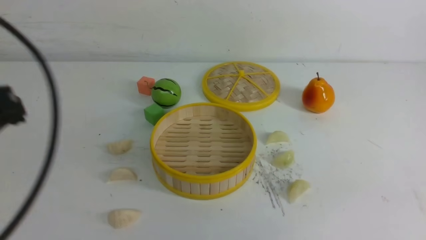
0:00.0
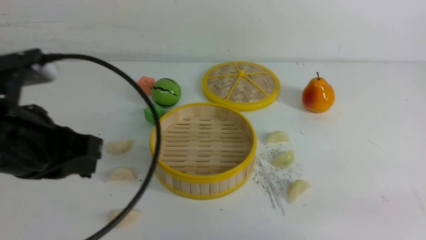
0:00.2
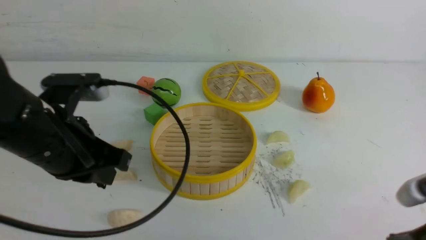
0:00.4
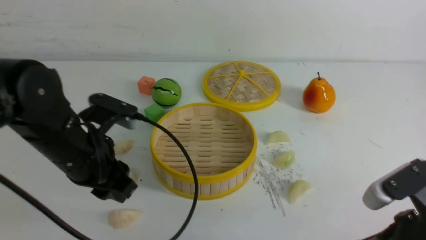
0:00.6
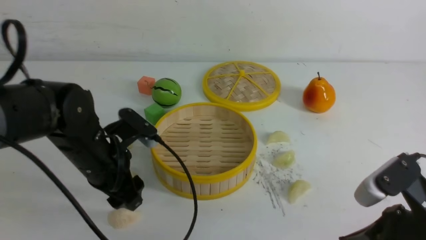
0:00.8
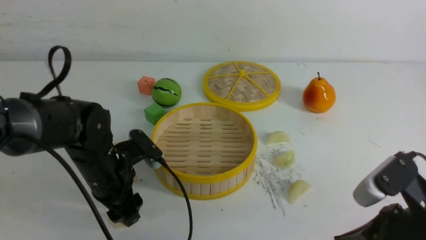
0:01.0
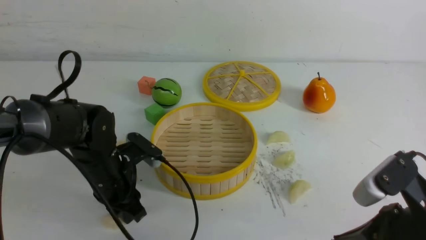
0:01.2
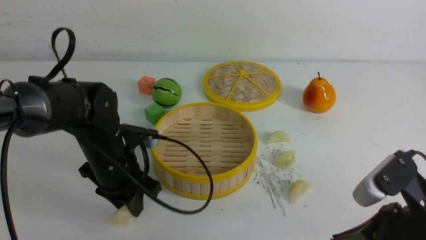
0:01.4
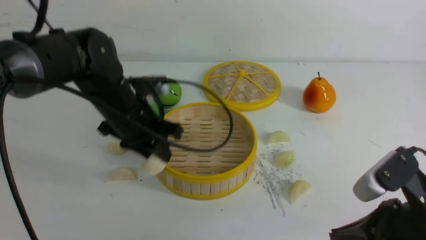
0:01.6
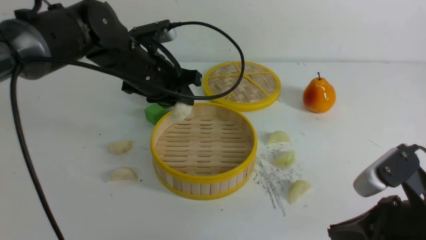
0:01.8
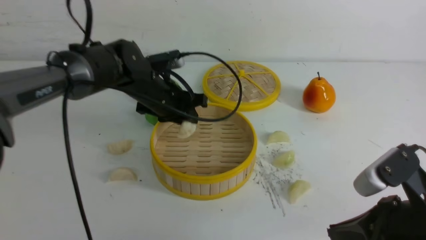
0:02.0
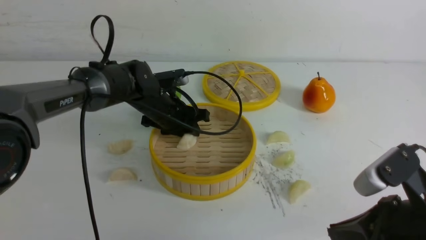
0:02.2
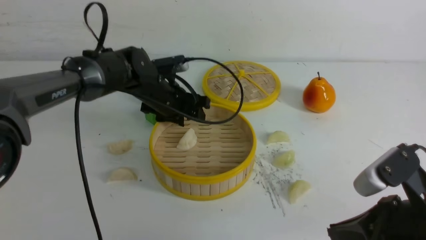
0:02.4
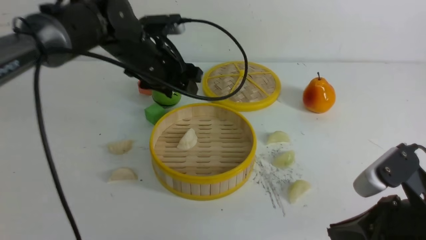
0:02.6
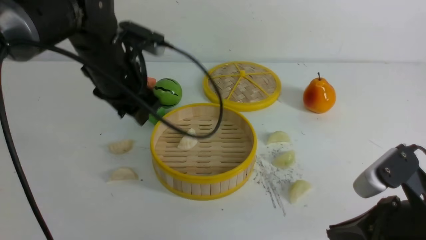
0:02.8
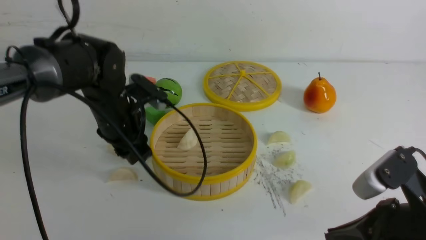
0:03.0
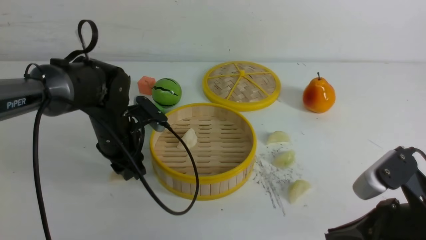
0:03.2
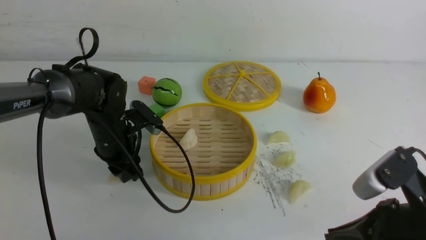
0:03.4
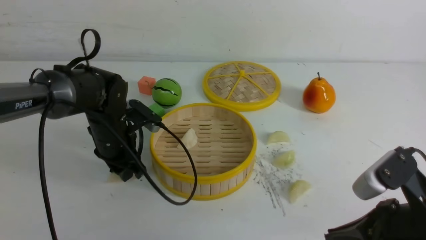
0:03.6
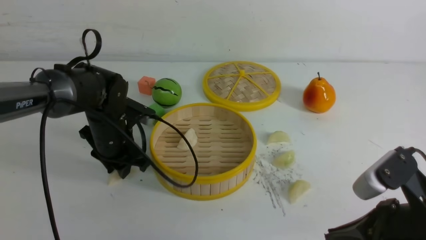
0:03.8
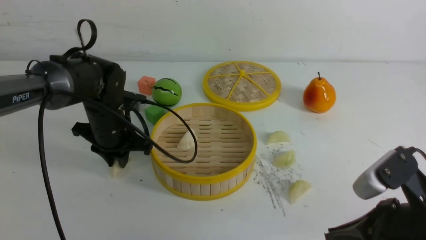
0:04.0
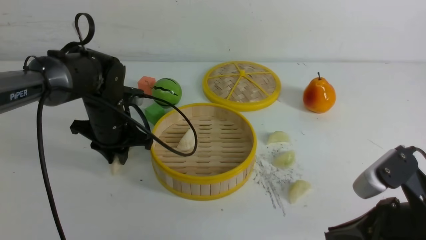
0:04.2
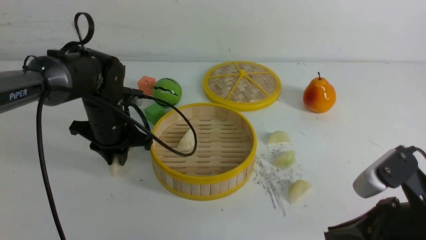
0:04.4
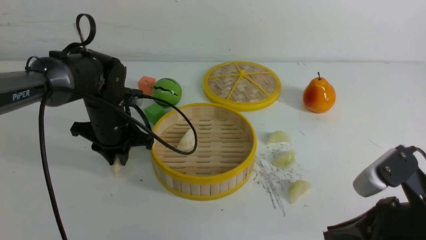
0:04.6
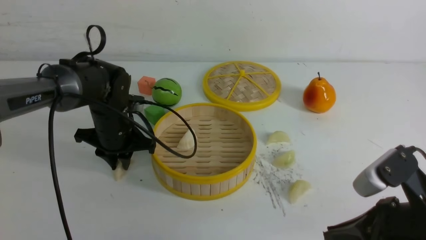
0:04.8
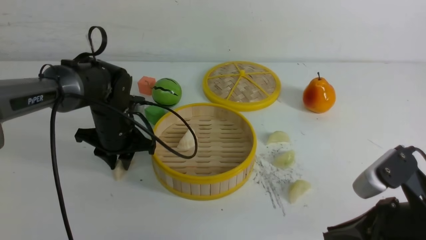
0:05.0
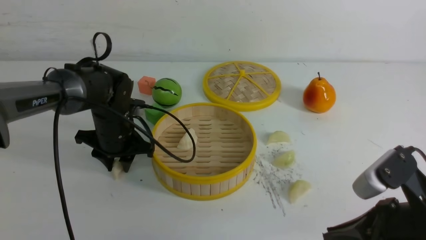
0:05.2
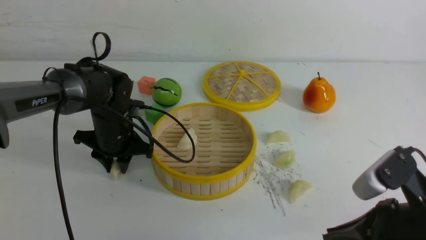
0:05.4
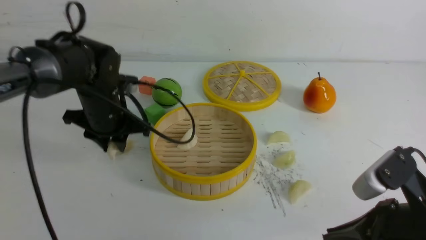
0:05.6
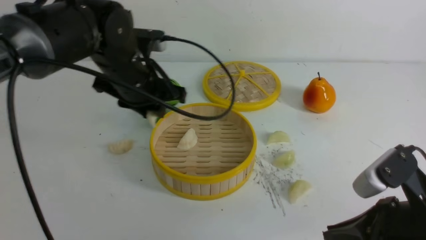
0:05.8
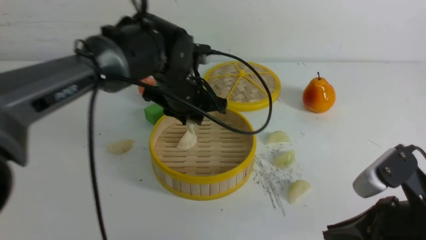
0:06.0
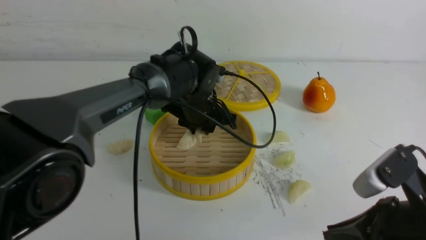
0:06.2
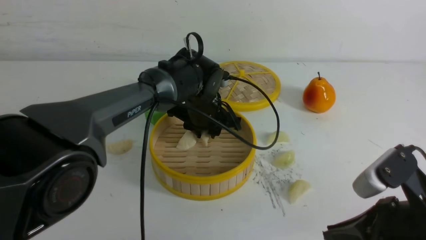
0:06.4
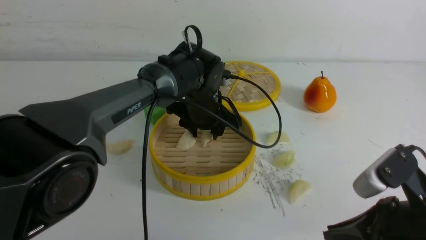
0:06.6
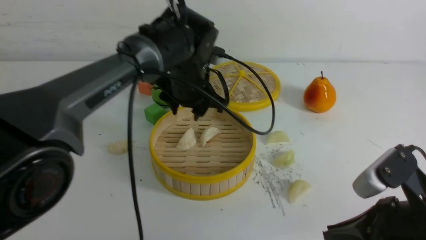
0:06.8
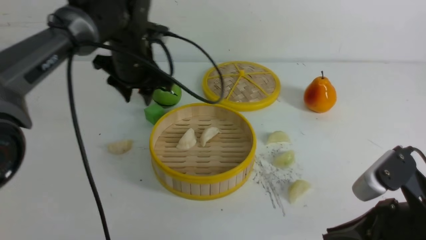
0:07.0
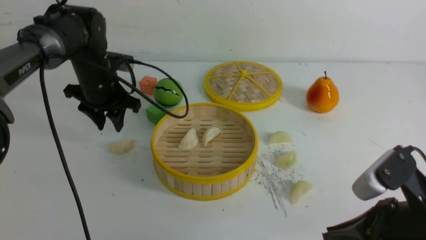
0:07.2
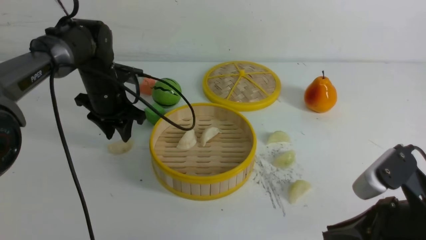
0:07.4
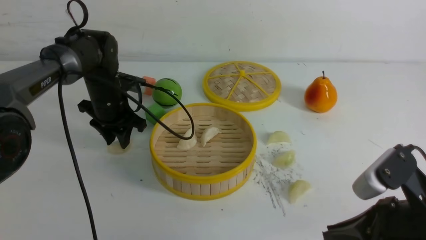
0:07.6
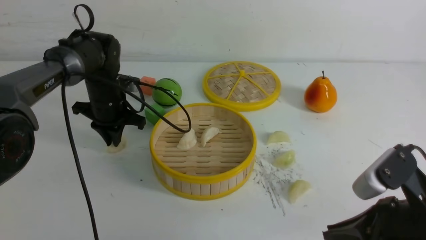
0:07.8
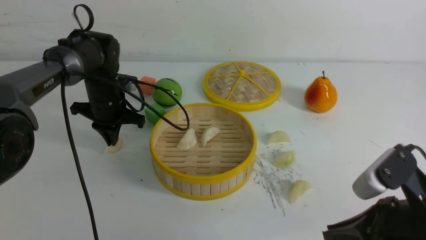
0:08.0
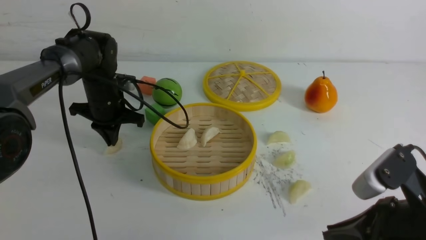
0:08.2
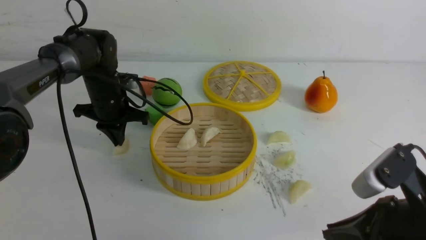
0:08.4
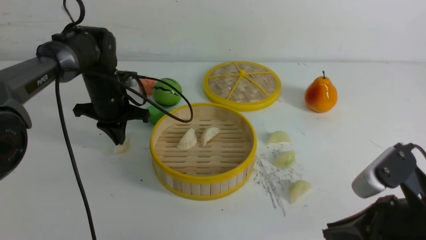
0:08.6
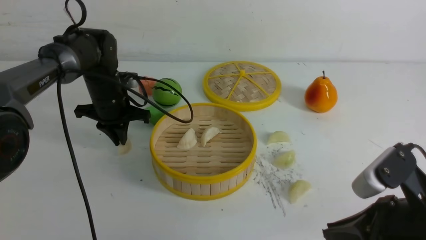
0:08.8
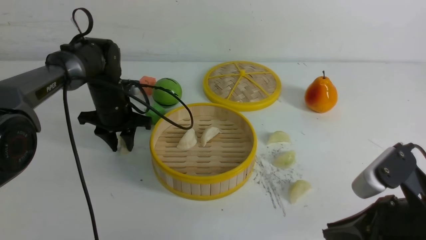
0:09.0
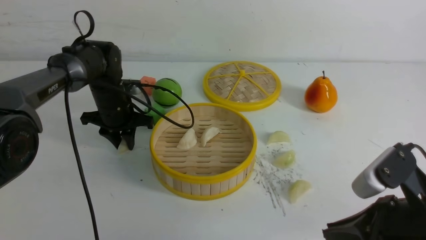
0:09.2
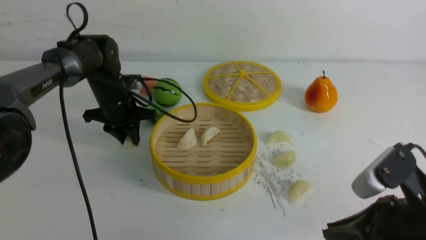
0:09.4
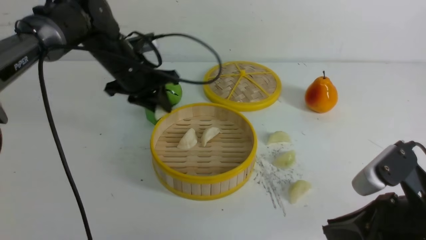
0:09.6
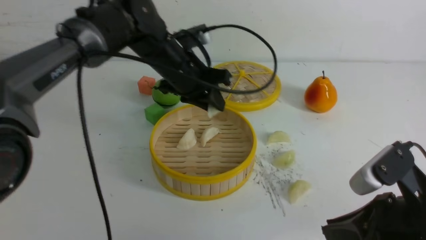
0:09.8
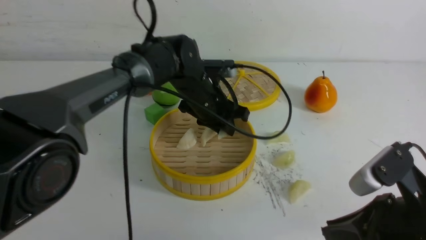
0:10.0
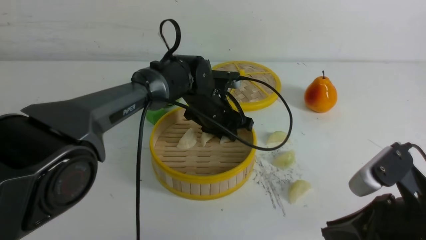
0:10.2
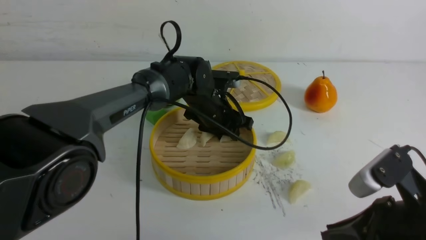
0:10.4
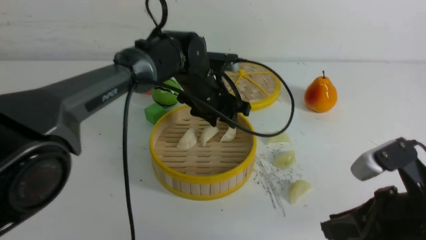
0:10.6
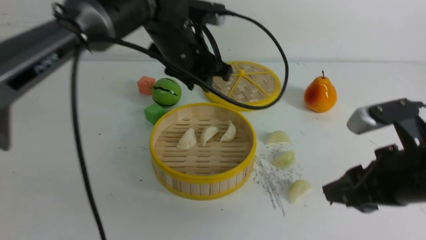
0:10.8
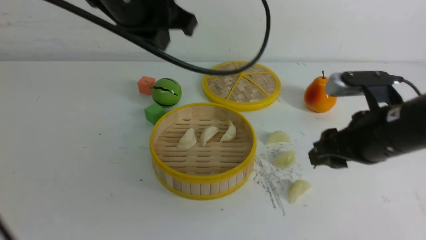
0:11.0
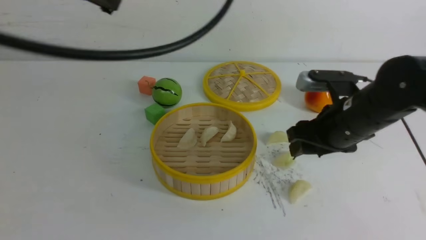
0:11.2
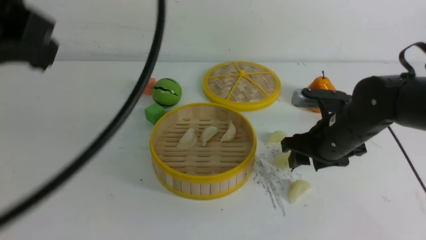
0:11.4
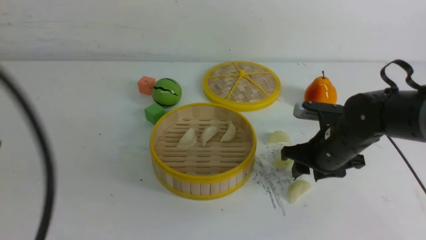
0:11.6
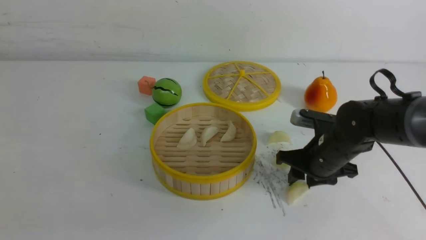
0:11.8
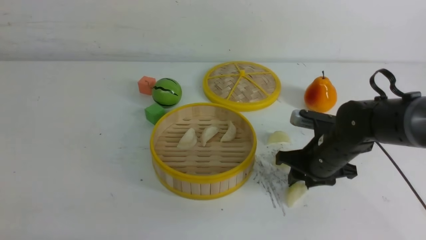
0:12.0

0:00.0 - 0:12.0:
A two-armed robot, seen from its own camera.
Task of the whole recording: put the dumplings into the steamer on the white table.
Step, 0:01.2 - 0:02.2: use the left arm to put the dumpling into the steamer.
Step, 0:02.4 - 0:04.2: use the left arm to grab a dumpling.
Step, 0:04.4 - 0:06.6: use the left arm to put the dumpling into the steamer.
Step, 0:06.8 - 0:09.2: use the left arm to grab a dumpling.
Step, 0:09.4 - 0:10.4: use the left arm to put the dumpling into the steamer.
0:00.0 - 0:01.6: The left gripper heads forward, downward and to the right, covering about 25 cm, and opens. The right gripper travels to the left and downward by approximately 10 cm.
0:01.6 - 0:03.0: The left gripper reaches about 10 cm forward, then returns.
0:03.0 - 0:04.4: The left gripper closes its fingers.
0:04.4 - 0:06.0: The left gripper travels to the right and upward by approximately 15 cm.
0:06.0 - 0:07.6: The left gripper moves to the left, downward and forward, roughly 15 cm, and opens and closes again.
0:07.6 - 0:09.0: The left gripper closes, then reopens.
0:09.0 - 0:10.4: The left gripper shifts about 20 cm to the right.
0:10.4 - 0:12.0: The right gripper heads forward and downward, covering approximately 20 cm, and opens; the left gripper travels backward and to the left by some 50 cm, and closes up.

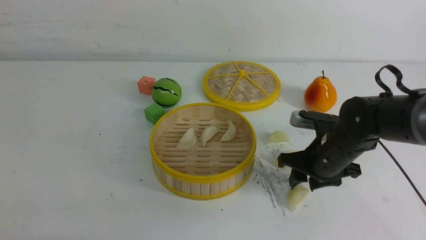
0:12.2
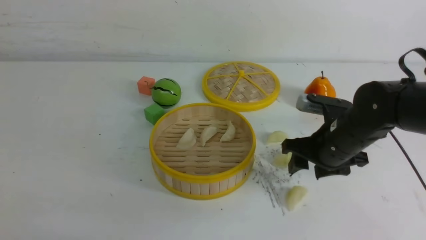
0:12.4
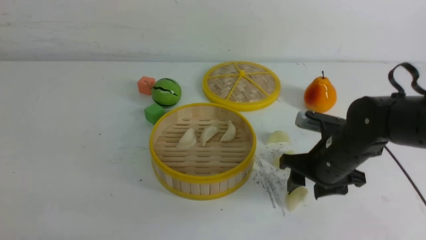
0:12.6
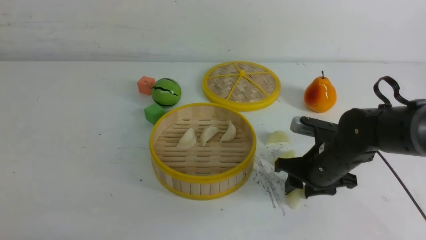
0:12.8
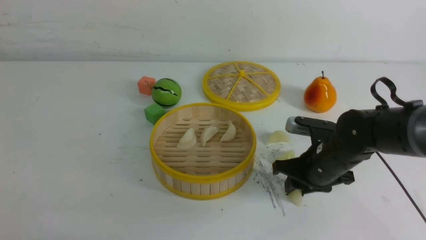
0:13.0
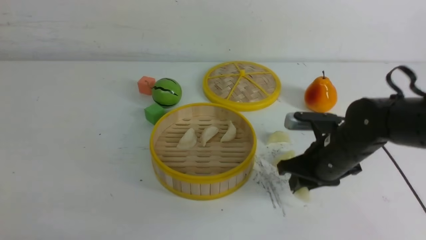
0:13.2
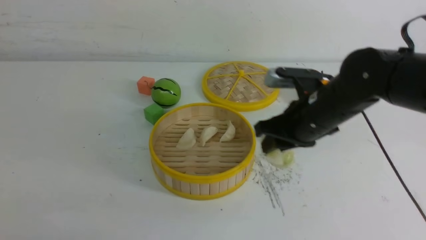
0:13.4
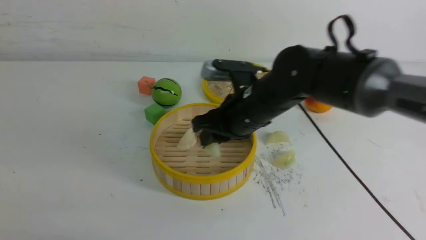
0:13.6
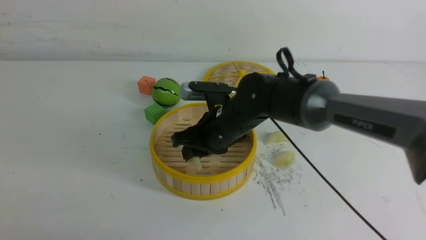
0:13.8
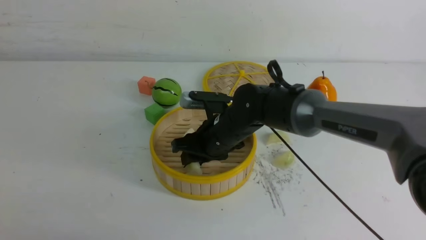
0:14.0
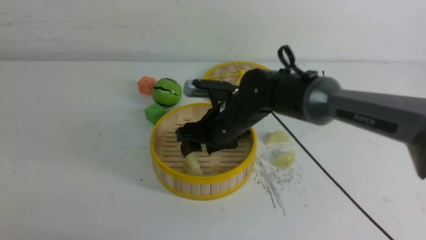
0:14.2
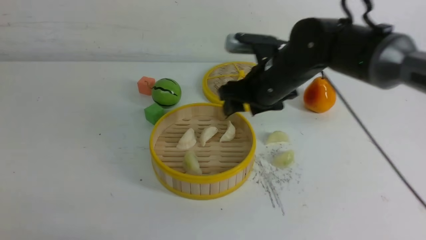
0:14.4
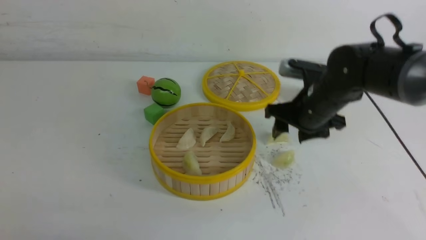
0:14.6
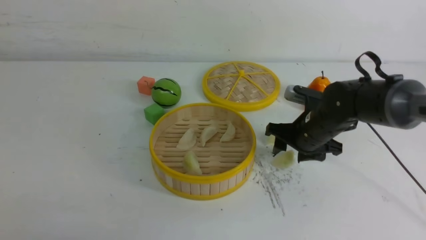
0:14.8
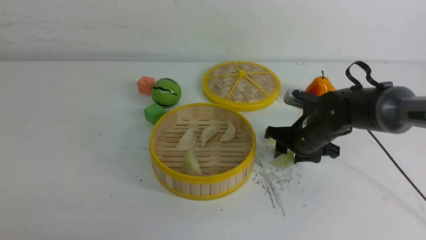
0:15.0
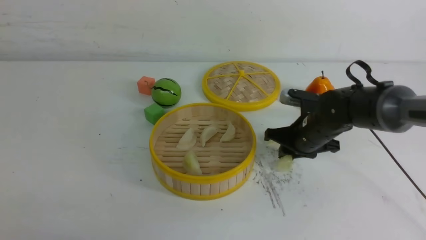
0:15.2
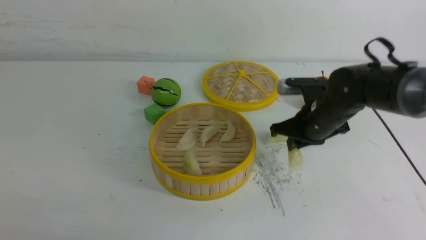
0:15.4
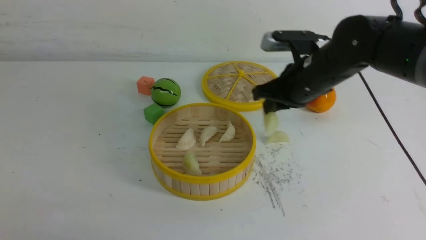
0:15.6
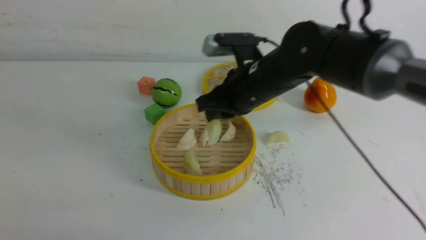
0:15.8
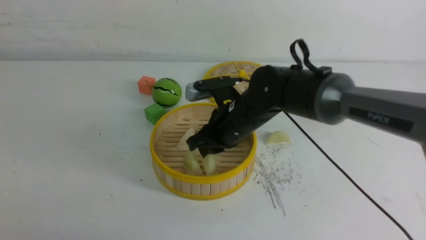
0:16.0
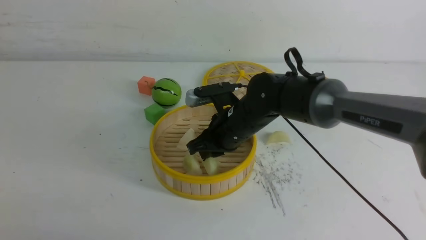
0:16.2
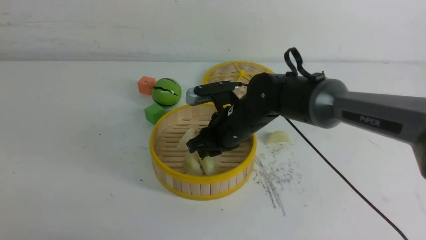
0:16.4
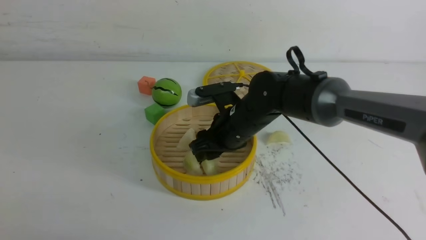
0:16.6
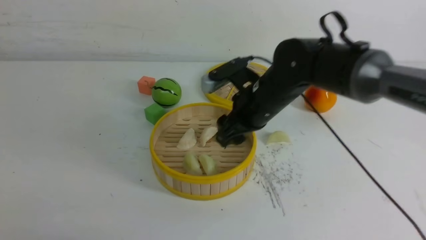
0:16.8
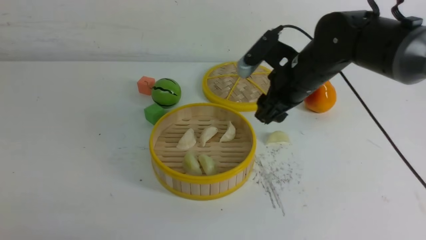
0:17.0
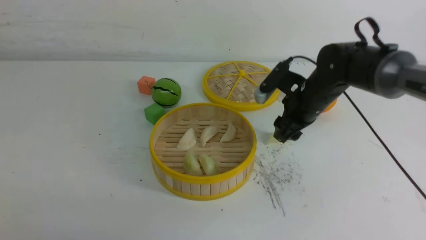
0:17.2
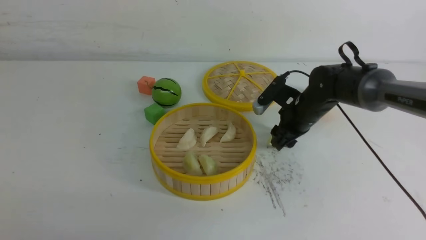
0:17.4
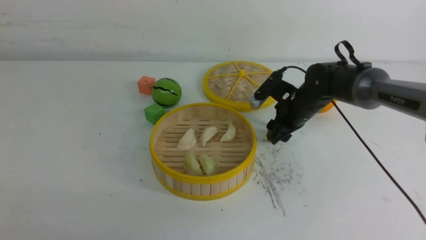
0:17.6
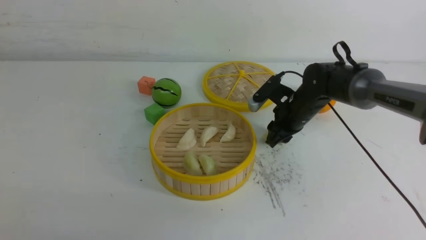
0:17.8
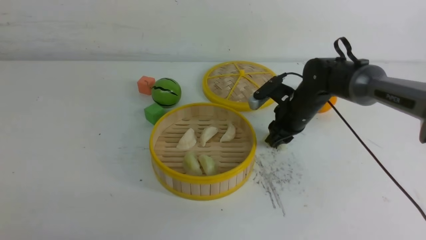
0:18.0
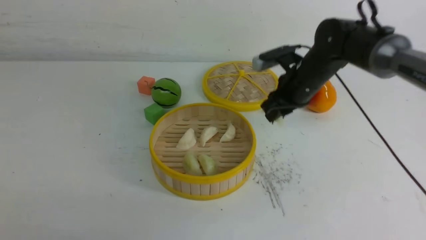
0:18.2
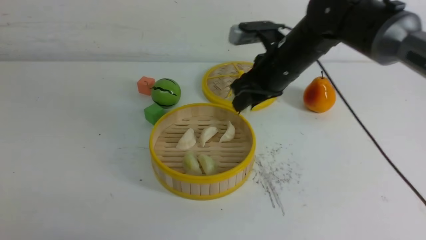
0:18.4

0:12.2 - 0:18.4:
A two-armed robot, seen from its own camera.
Task of the whole recording: put the dumplings into the steamer on the white table.
Step, 0:13.2 - 0:14.0: use the right arm to put the dumpling into the steamer.
Step, 0:14.2 - 0:15.4: use the right arm to grab a dumpling.
Step, 0:15.6 - 0:16.4: use the right arm to put the dumpling into the steamer.
Step, 0:16.6 - 0:18.0: use the right arm to grab a dumpling.
0:12.2 - 0:13.8: The right gripper shifts about 15 cm to the left.
0:13.8 - 0:15.4: The right gripper moves to the right, approximately 15 cm, and opens, then closes once more.
0:15.4 - 0:16.8: The right gripper shifts some 5 cm to the left, and opens its fingers.
0:16.8 - 0:18.4: The right gripper moves some 10 cm downward and comes back, and closes its fingers.
